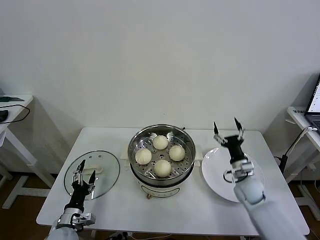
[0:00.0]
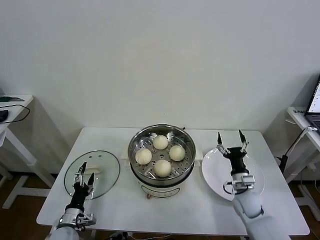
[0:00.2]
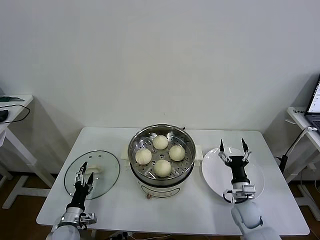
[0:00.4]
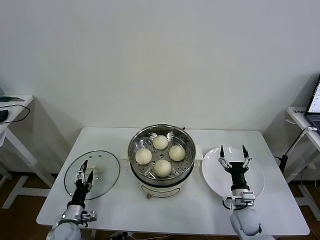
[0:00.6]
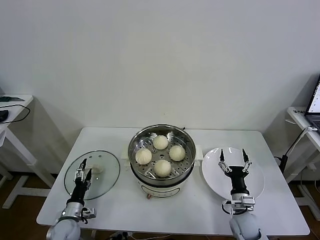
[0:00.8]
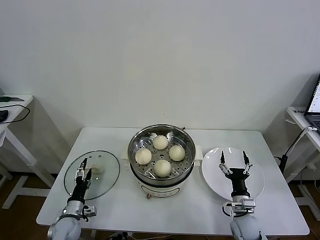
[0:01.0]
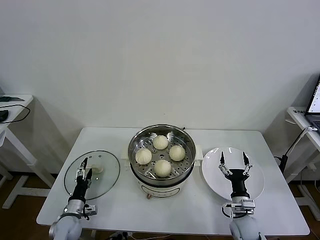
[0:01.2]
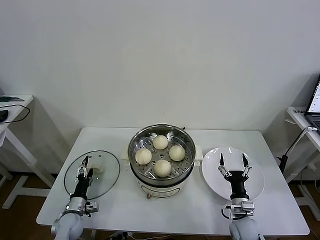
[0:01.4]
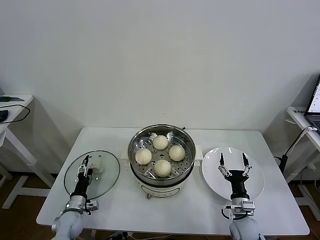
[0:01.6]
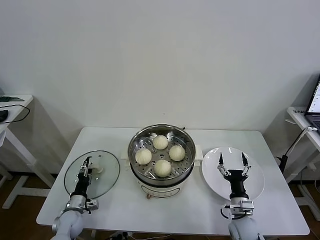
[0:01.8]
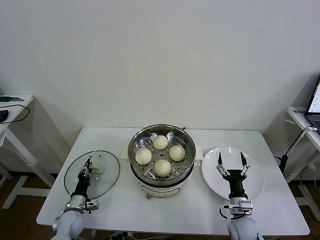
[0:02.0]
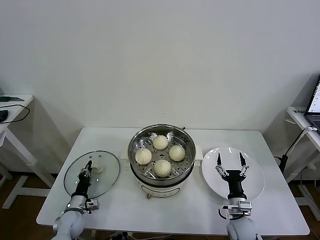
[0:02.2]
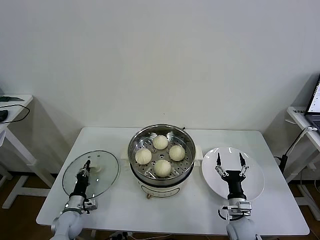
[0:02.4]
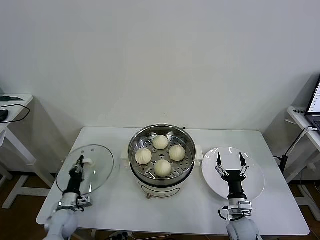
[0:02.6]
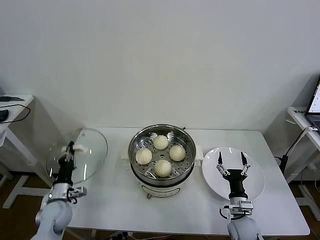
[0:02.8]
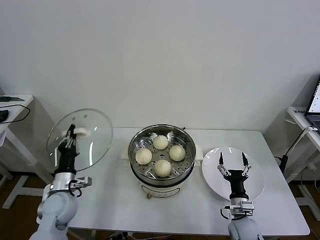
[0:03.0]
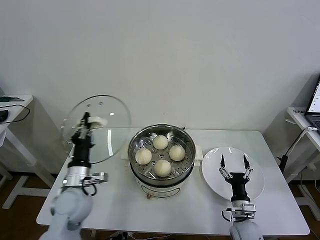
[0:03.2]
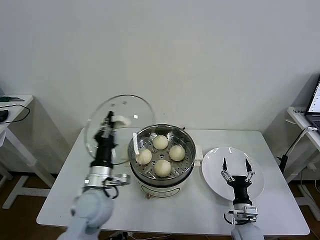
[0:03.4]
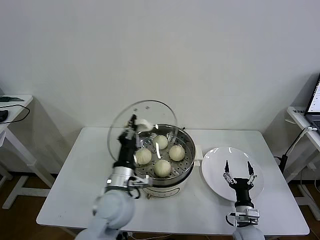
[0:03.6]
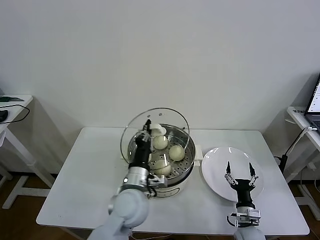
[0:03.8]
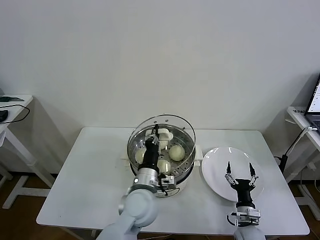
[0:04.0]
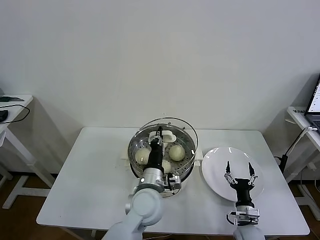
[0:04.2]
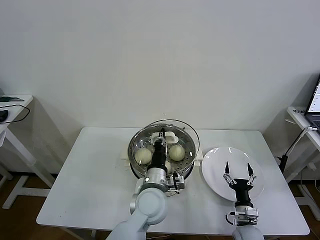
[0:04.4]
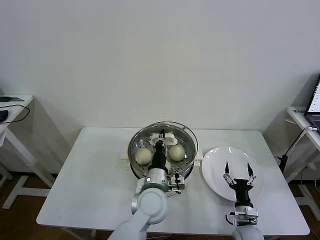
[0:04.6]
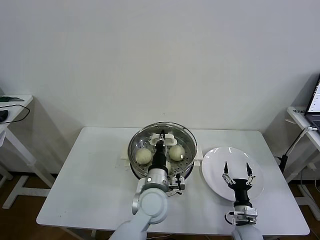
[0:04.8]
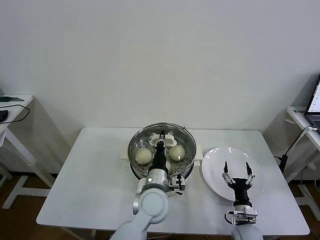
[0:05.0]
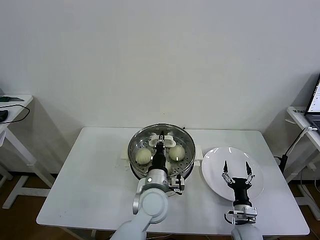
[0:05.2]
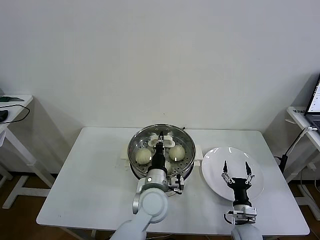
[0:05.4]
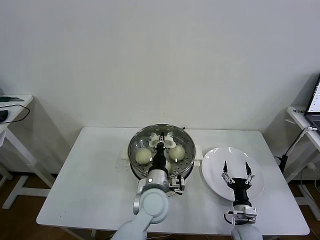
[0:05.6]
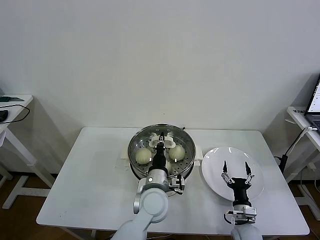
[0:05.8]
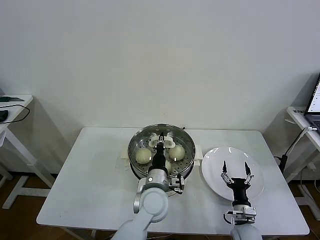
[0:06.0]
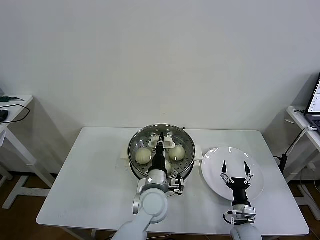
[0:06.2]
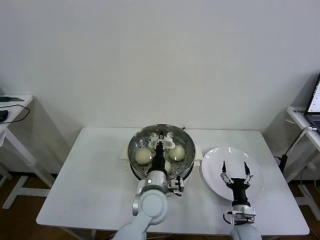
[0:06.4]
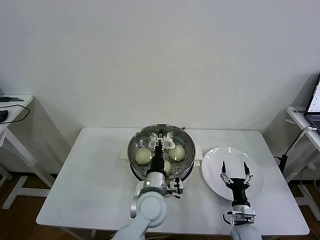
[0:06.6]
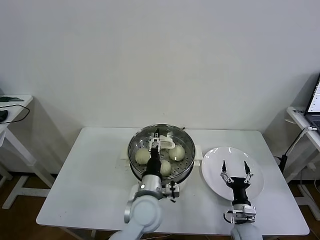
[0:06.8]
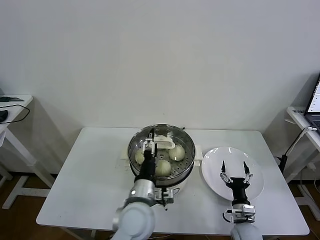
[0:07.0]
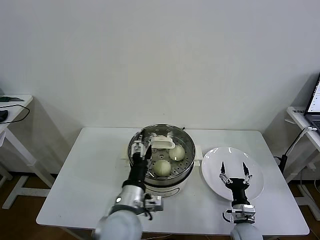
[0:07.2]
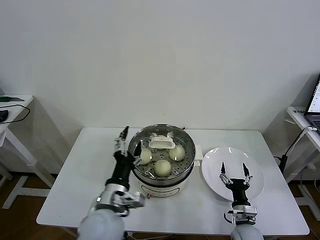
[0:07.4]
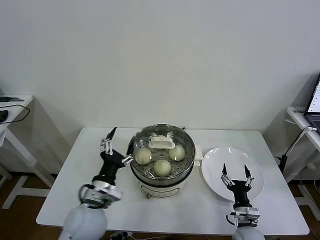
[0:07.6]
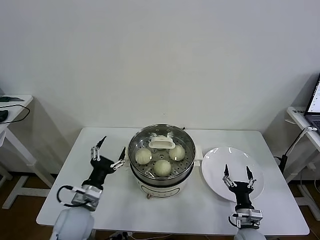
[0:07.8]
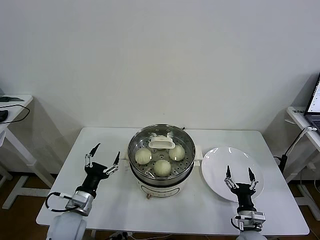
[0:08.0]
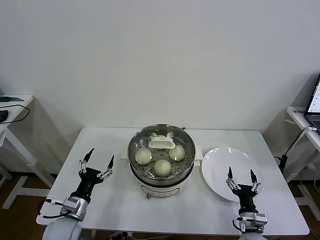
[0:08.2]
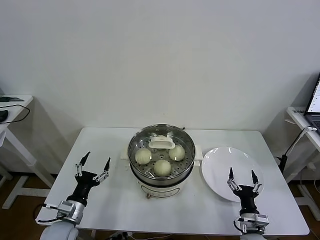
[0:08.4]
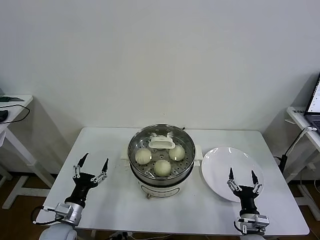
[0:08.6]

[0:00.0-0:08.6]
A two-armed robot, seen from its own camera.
Task of the whole recording: take steamed baozi put them in steamer then cover it.
Step, 0:00.0 to 0:02.2: Grasp the pot lid with left gripper.
Step, 0:02.6 to 0:06.4: Place the pot lid on the steamer with left gripper.
0:00.0 to 0:01.4: The right gripper heads backward and downward, covering some 15 cm. Meanwhile the left gripper moves downward and forward, some 10 cm.
0:01.4 to 0:02.8: The left gripper goes approximately 5 cm upward, and closes its fingers.
0:02.8 to 0:04.4: The left gripper is displaced to the right and upward by roughly 35 cm.
0:04.4 to 0:05.8: There are only small adjustments of the grippers.
0:05.8 to 0:07.2: The left gripper moves backward and to the left, about 10 cm, and opens up.
0:07.2 to 0:08.6: The left gripper shifts some 25 cm to the left and downward.
